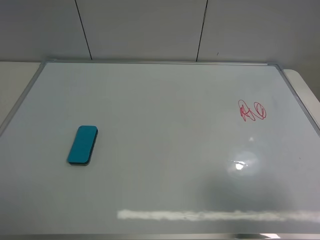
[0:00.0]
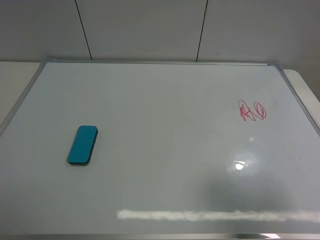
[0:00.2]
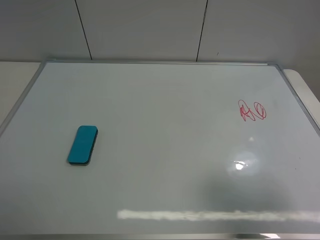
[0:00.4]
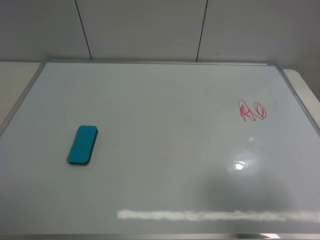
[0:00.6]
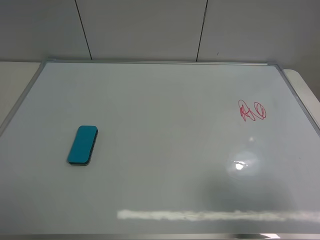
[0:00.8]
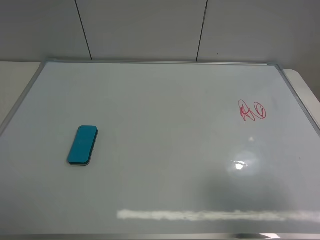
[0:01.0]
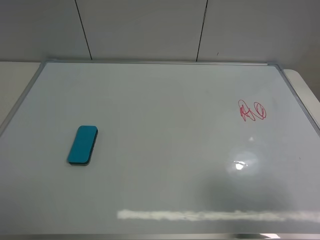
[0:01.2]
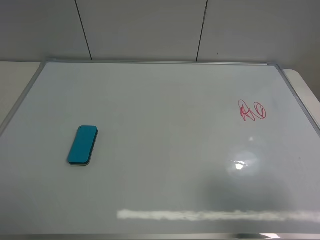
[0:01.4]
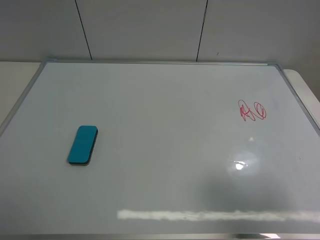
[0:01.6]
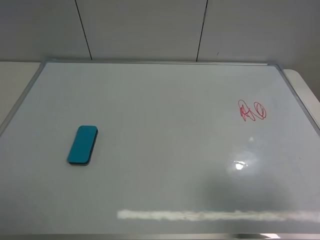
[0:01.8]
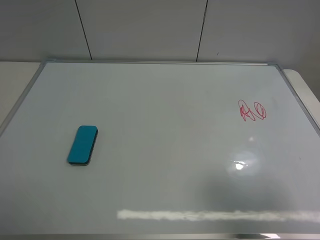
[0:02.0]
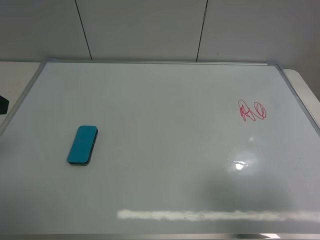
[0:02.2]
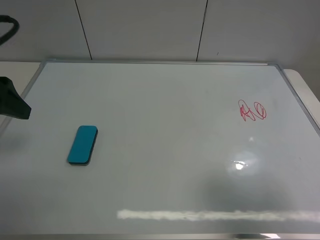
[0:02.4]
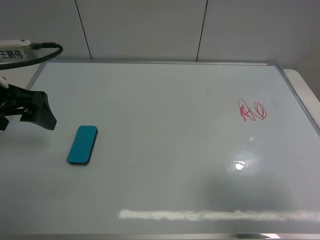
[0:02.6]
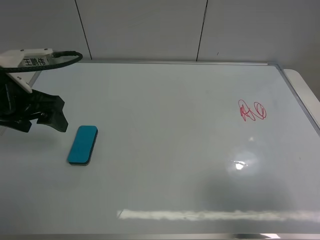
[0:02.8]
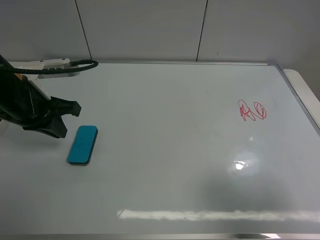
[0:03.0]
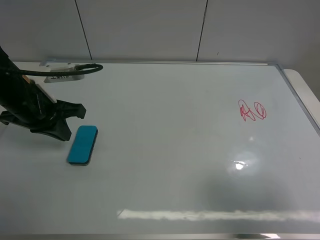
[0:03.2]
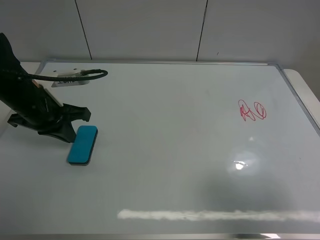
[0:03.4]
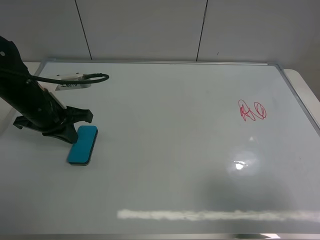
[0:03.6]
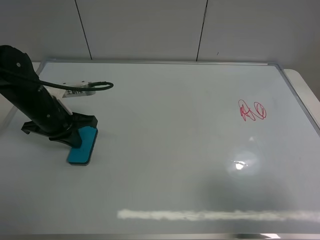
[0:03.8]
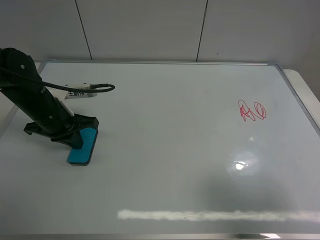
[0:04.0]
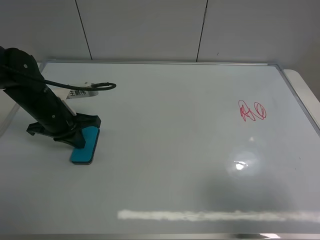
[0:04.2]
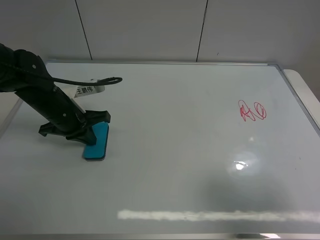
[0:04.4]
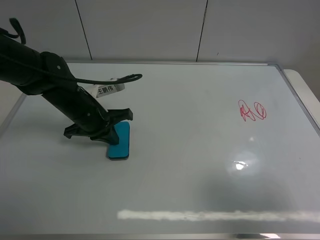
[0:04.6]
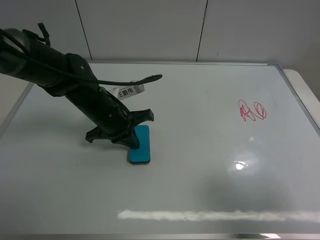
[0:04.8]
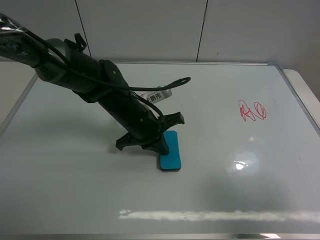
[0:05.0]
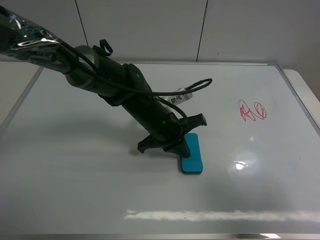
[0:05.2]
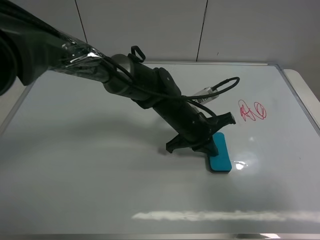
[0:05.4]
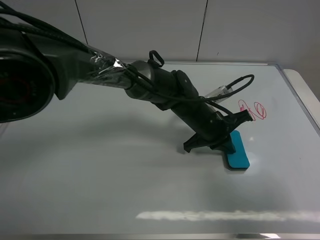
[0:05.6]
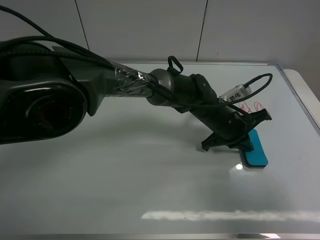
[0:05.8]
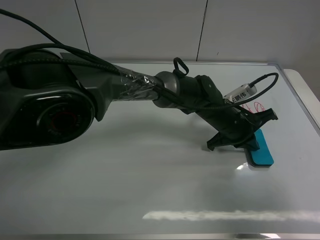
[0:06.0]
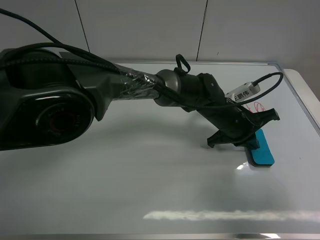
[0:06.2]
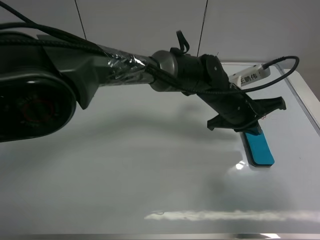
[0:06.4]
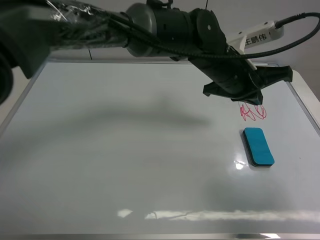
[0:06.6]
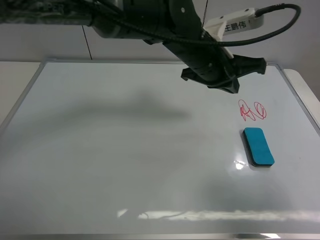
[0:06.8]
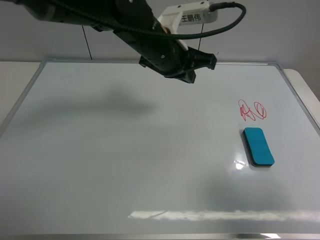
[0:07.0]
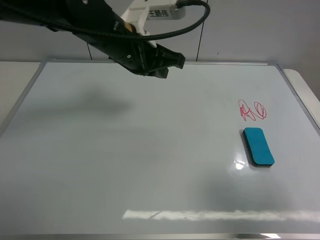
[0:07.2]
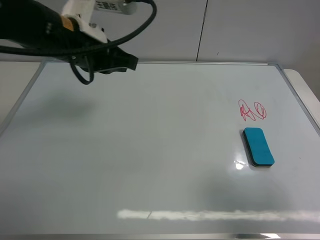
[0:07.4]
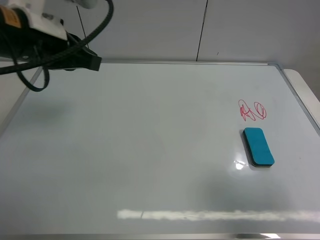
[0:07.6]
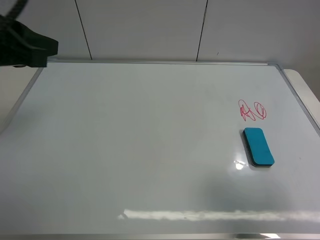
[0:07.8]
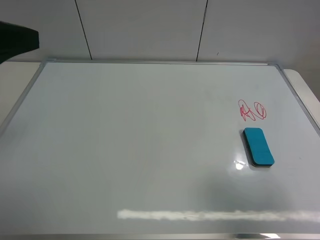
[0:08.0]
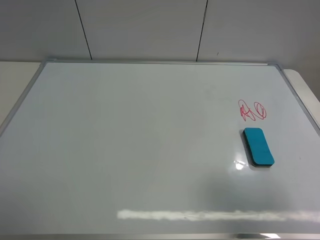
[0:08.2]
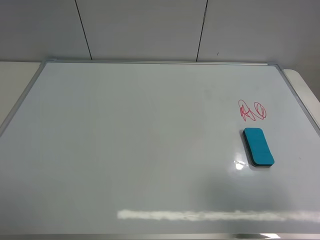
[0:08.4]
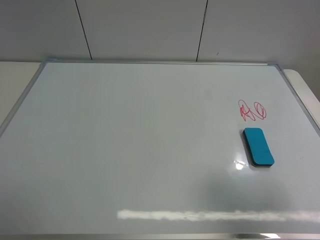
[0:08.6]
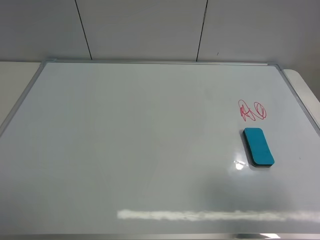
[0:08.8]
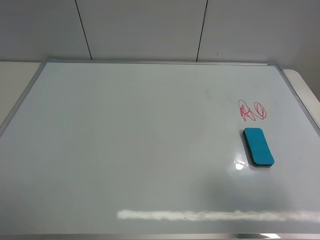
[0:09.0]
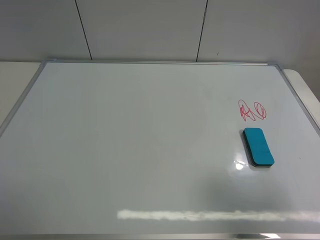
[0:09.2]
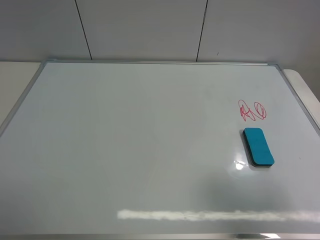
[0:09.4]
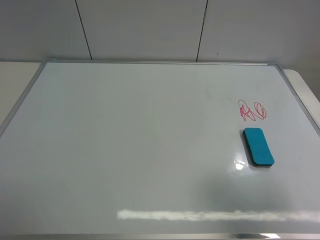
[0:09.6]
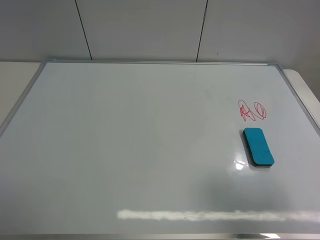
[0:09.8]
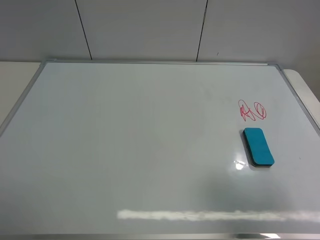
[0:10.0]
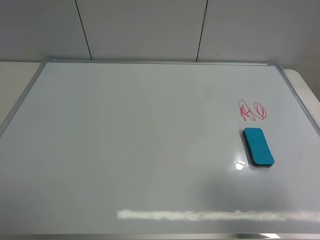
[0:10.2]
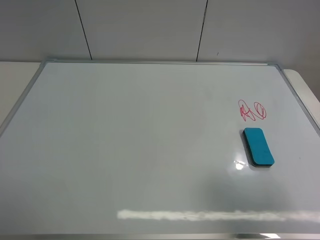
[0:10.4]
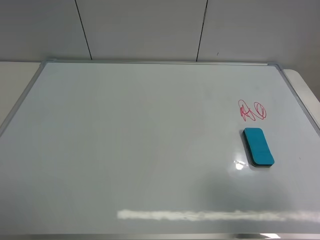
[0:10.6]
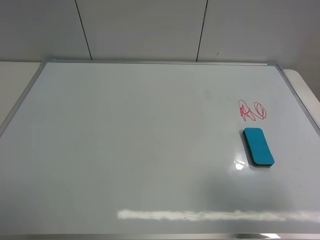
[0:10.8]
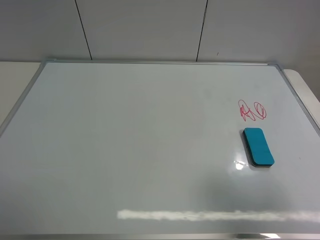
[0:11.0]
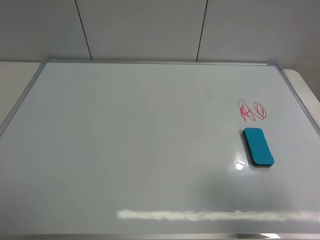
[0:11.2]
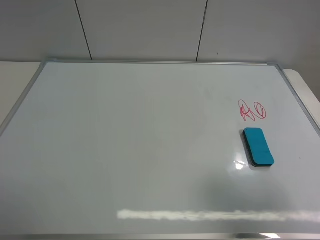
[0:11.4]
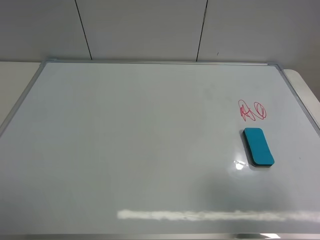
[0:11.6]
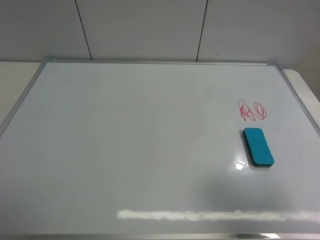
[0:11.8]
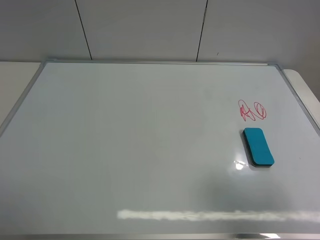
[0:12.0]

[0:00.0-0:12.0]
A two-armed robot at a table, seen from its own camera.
Task of the whole recording: use the left gripper to place the eraser in the right, use the right gripper to pick up the eraser, wipe the notes on the whiteboard clean, and then put it down.
Step, 0:00.0 to 0:06.4: Move the board eraser to the right of the whiteboard with left gripper.
0:00.0 to 0:01.6: Both grippers stay put.
0:01.6 to 0:03.0: The left gripper travels forward by some 25 cm, and closes up.
0:03.0 to 0:04.4: The left gripper shifts approximately 10 cm downward.
0:04.4 to 0:06.0: The left gripper goes roughly 35 cm to the right.
0:06.0 to 0:07.6: The left gripper heads to the left and upward, covering roughly 40 cm.
0:07.6 to 0:09.0: The left gripper heads backward and to the left, covering roughly 35 cm, and opens.

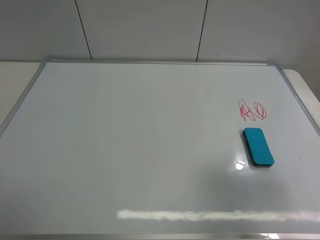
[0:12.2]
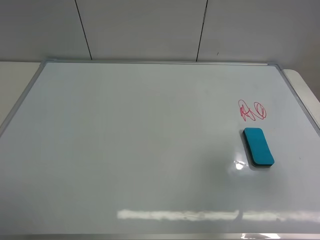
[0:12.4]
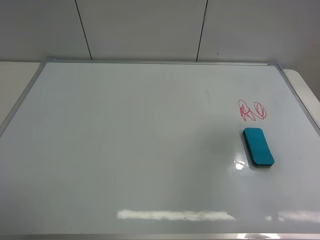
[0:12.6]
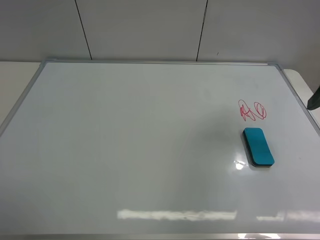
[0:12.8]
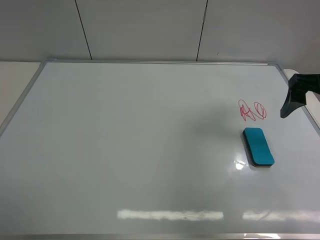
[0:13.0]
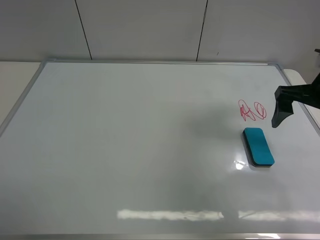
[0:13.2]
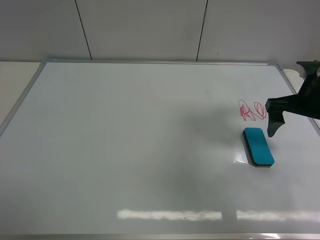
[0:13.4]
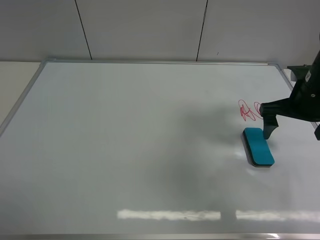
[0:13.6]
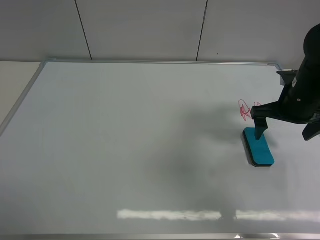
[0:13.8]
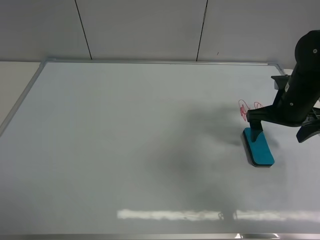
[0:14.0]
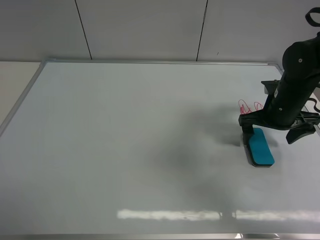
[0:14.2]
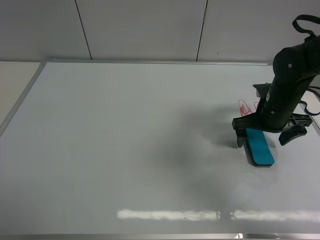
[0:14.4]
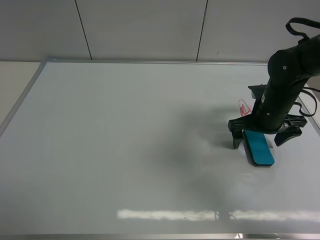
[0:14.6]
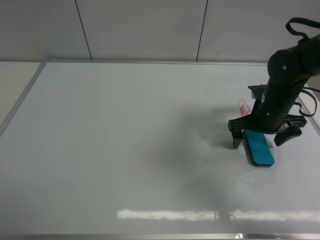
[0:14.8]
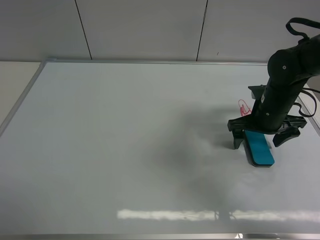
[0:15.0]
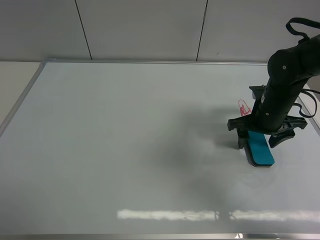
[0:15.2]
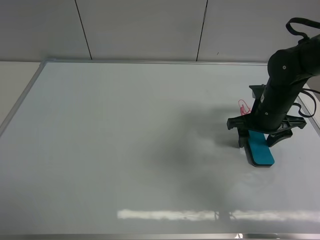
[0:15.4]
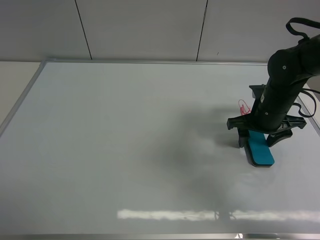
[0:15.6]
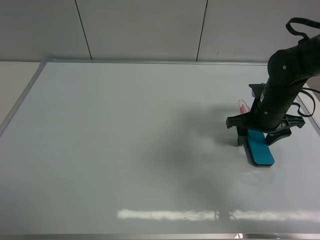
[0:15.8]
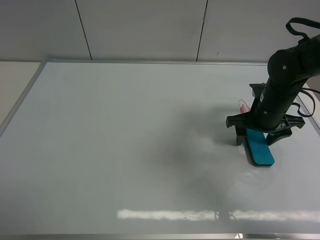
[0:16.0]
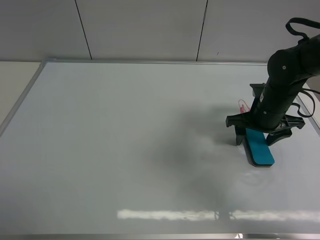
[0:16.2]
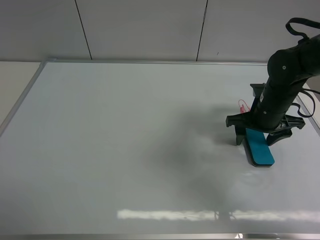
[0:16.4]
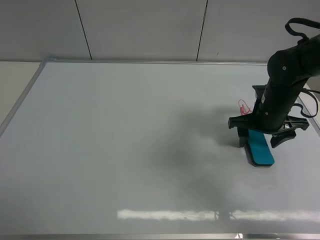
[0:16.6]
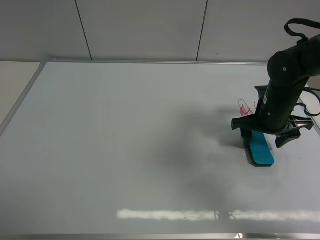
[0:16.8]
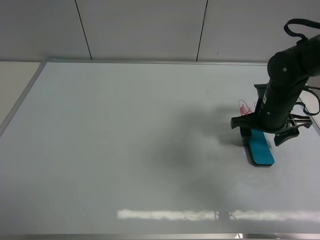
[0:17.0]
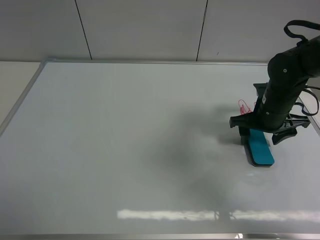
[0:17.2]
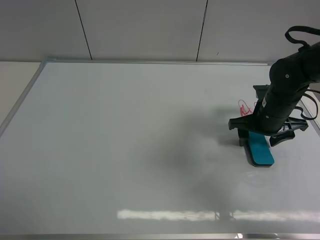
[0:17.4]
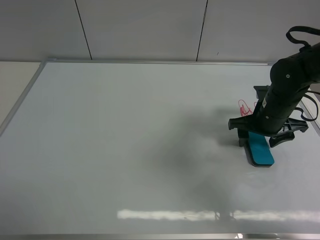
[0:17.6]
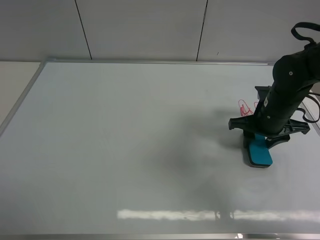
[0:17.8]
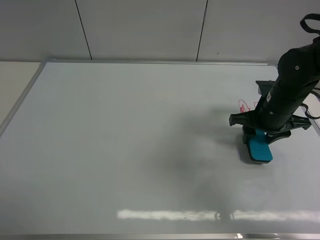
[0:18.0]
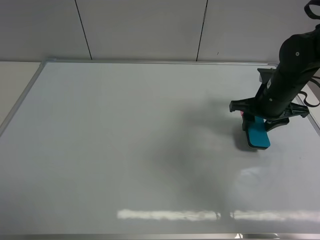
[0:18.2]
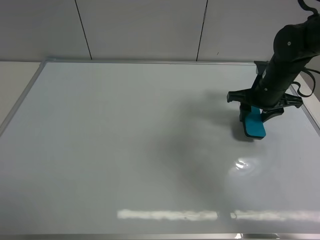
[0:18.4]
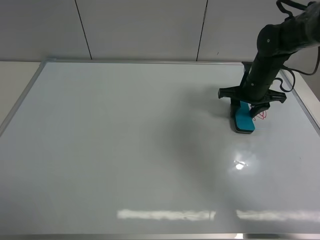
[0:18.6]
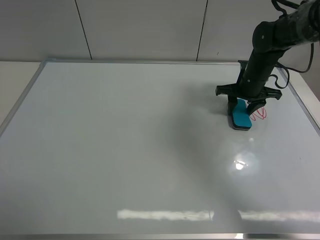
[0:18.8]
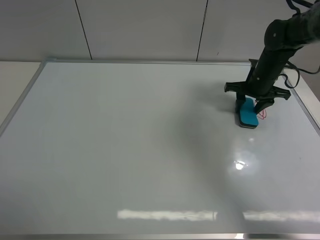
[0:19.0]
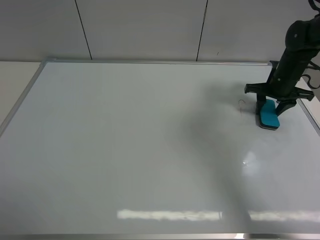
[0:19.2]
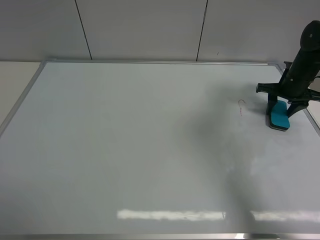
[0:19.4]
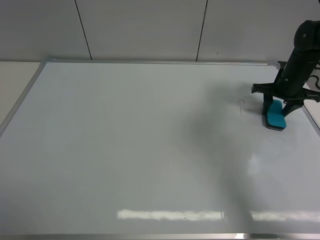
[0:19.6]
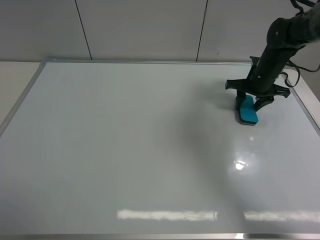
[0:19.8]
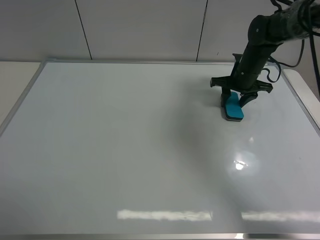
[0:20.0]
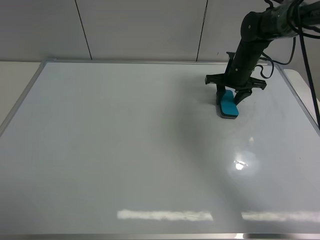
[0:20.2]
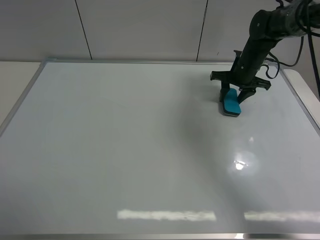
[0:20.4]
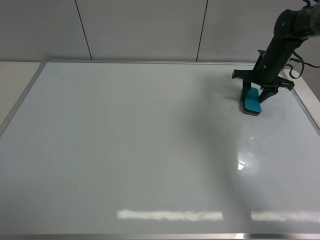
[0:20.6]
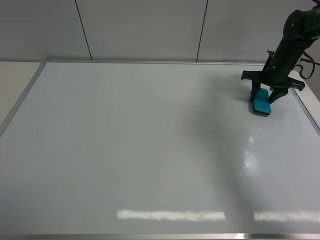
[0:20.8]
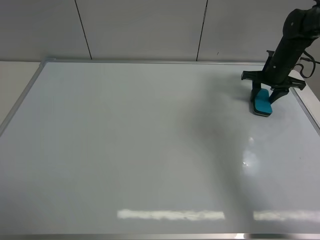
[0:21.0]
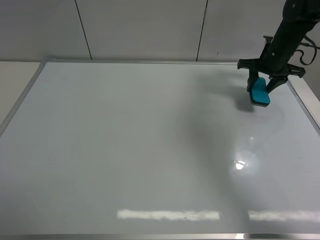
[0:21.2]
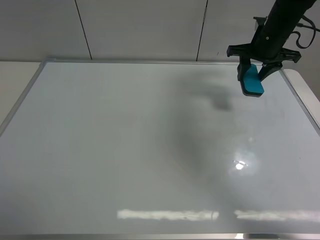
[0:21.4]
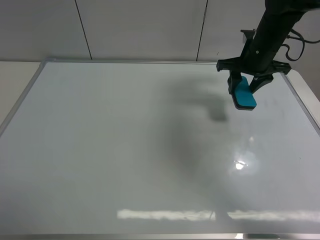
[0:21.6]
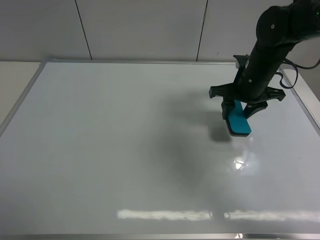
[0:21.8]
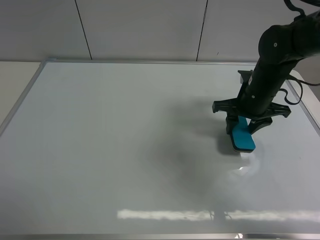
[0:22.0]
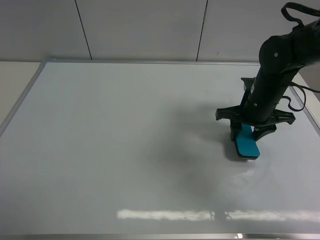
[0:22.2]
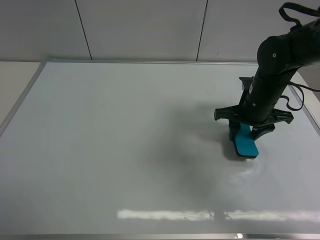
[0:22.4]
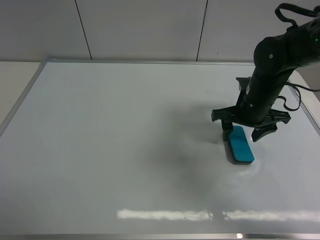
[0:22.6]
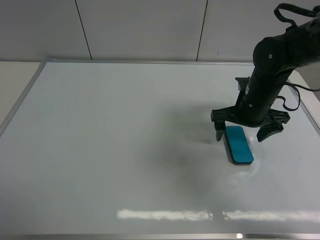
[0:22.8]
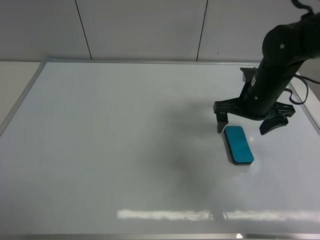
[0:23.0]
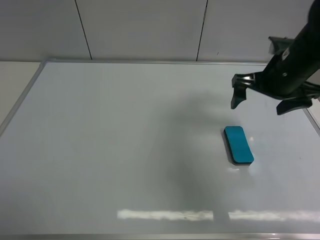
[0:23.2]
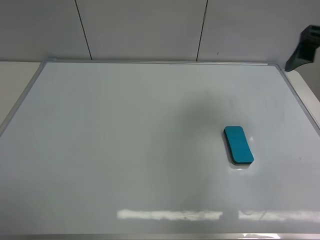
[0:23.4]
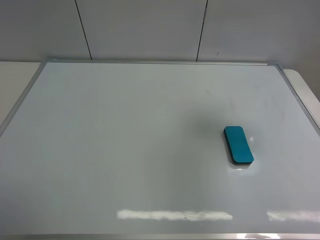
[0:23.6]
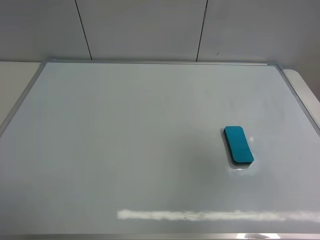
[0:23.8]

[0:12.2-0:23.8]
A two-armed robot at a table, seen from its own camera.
Task of the whole recording: use the left gripper to place the eraser in the right, use the right gripper to pick up the eraser, wipe the notes on the whiteboard clean, and then put it down.
Step, 0:12.2 to 0:18.0: Pick up the board eraser with right gripper.
Step, 0:18.2 to 0:20.8: Wipe off the writing on the board with right gripper.
Step, 0:21.0 to 0:23.0: Place the board eraser on the right side of board with right gripper.
0:12.2 to 0:13.6: The right gripper shifts approximately 25 cm forward and downward.
0:13.6 to 0:15.0: The right gripper goes about 5 cm downward.
0:15.0 to 0:16.6: The grippers stay close to where they were, moving slightly.
0:16.6 to 0:18.0: The right gripper closes up.
0:18.0 to 0:19.4: The right gripper shifts roughly 15 cm forward and to the right.
0:19.4 to 0:21.0: The right gripper reaches approximately 15 cm to the left, then returns.
0:21.0 to 0:22.4: The right gripper travels backward and to the left by approximately 20 cm.
0:22.4 to 0:23.8: The right gripper shifts roughly 40 cm backward, upward and to the right, and opens.
